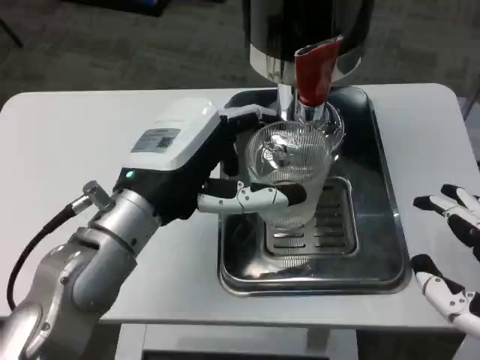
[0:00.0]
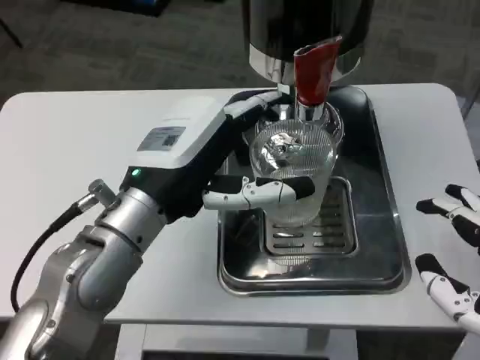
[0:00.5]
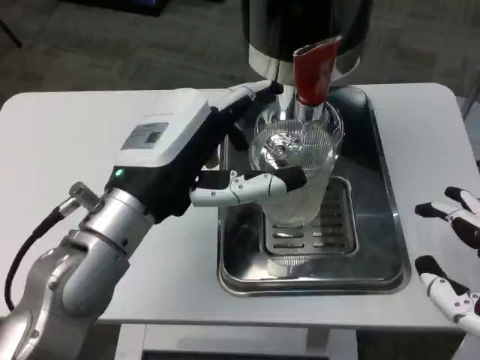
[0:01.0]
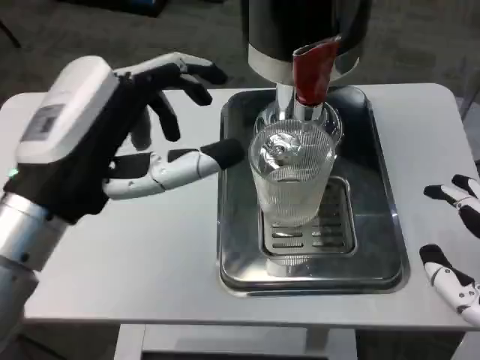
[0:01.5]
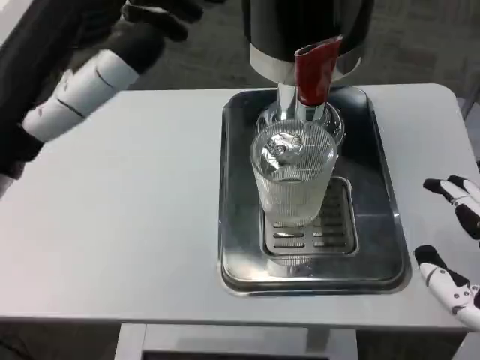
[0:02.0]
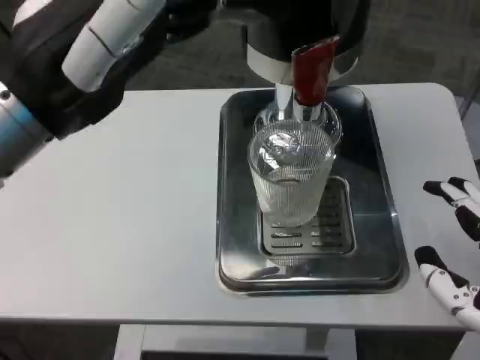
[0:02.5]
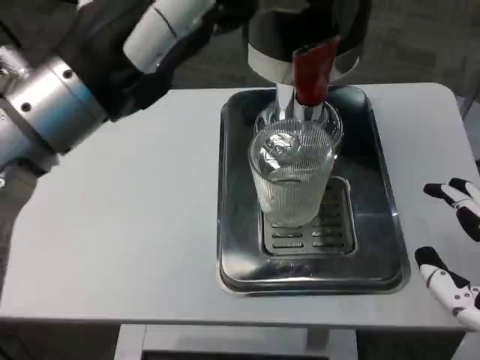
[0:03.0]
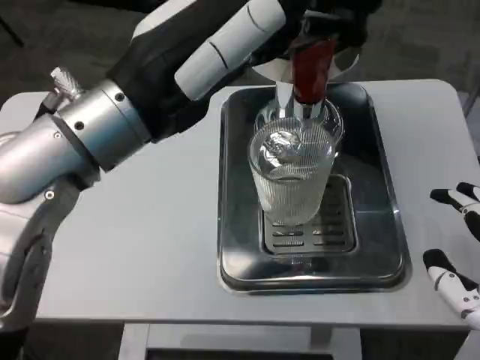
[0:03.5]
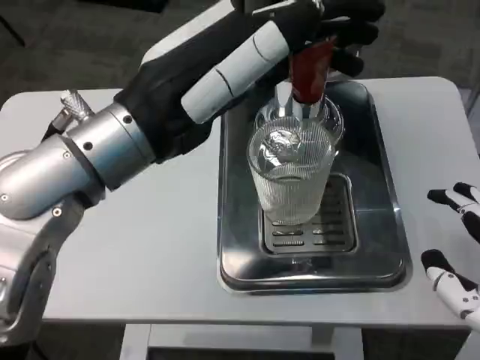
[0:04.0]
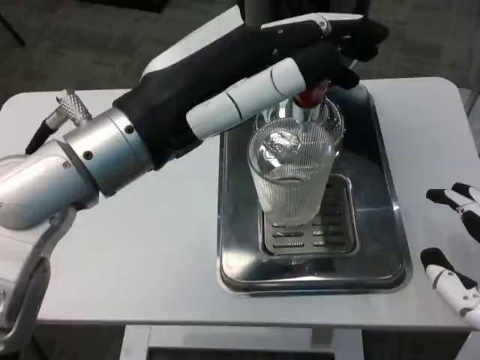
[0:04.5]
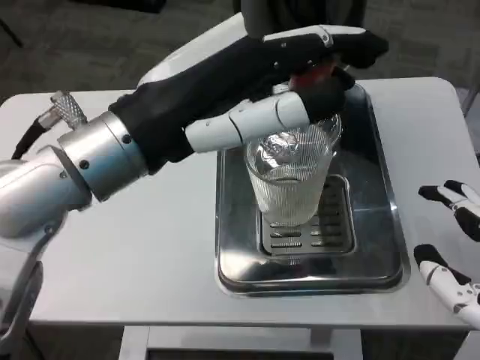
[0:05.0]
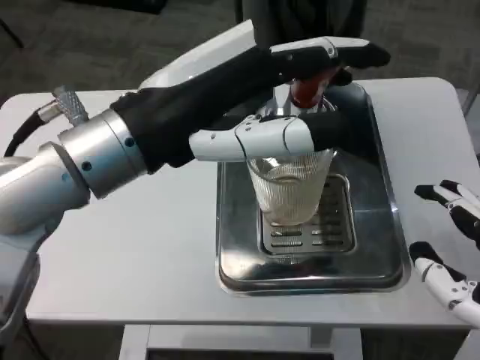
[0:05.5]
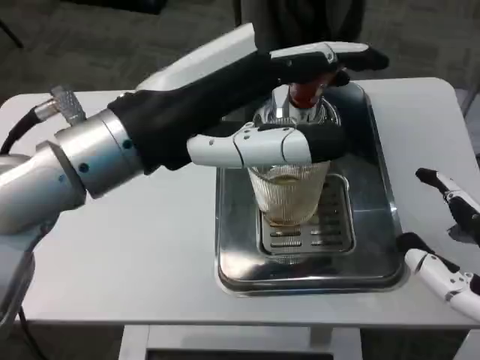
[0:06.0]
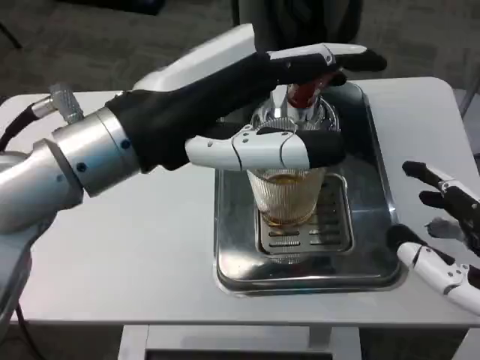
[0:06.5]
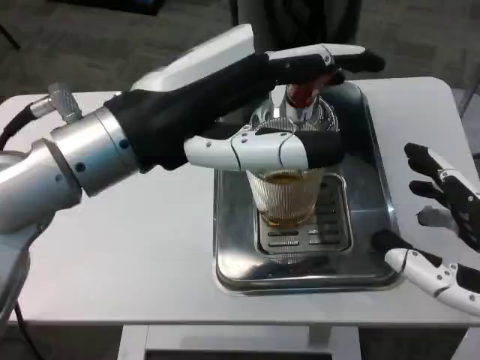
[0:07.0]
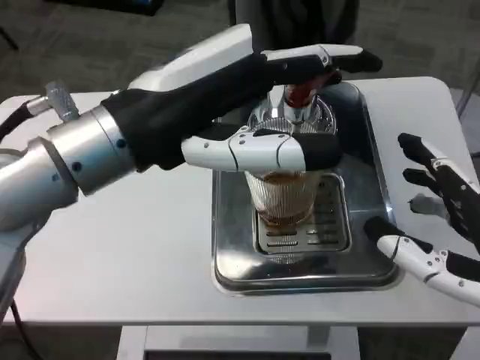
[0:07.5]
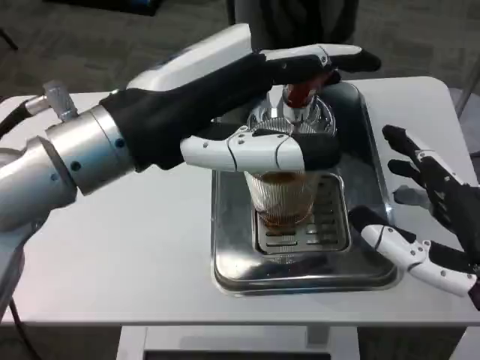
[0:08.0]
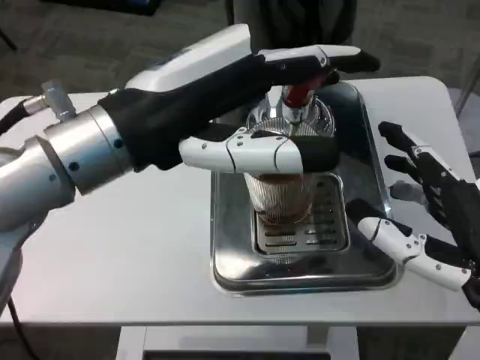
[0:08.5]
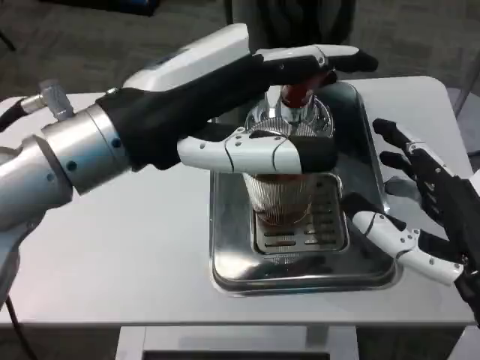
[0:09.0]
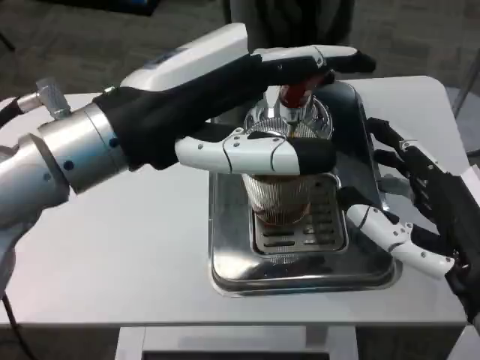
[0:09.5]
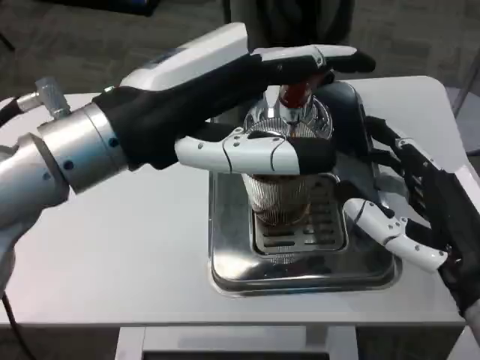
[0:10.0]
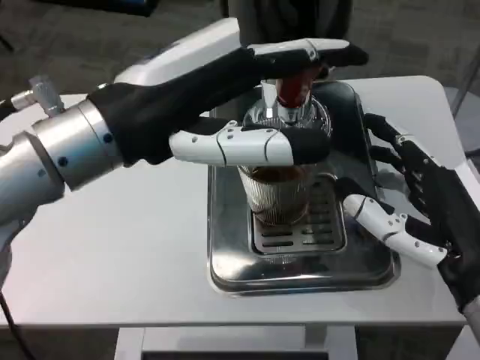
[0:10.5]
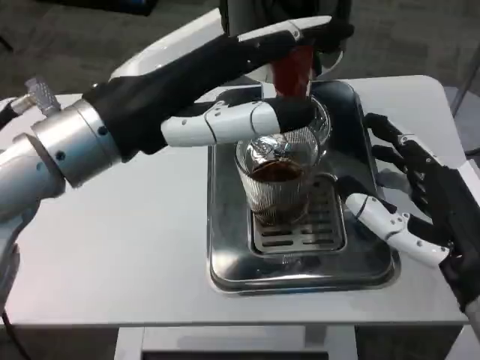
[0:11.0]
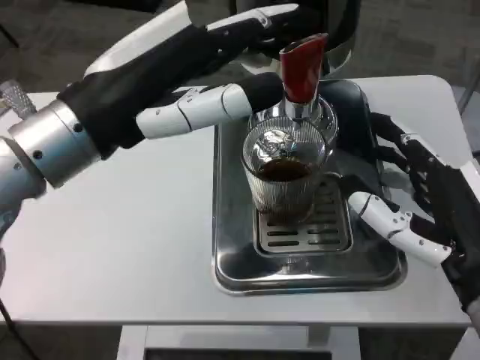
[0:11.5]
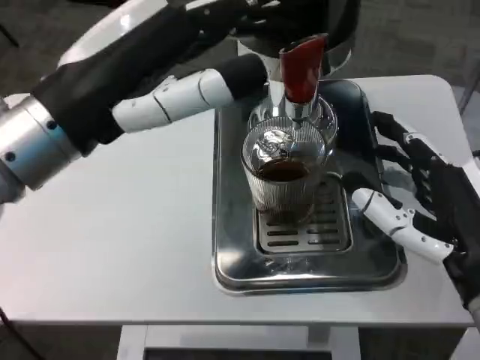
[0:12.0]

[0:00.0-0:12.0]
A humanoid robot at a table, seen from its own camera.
Task of the whole recording: Grasp the cup under the faucet to collect the drink, then remove the cup.
0:00.0 to 0:02.0: The left hand travels upward, to the left and backward by some 15 cm.
0:02.0 to 0:04.0: The left hand travels to the right by some 5 cm.

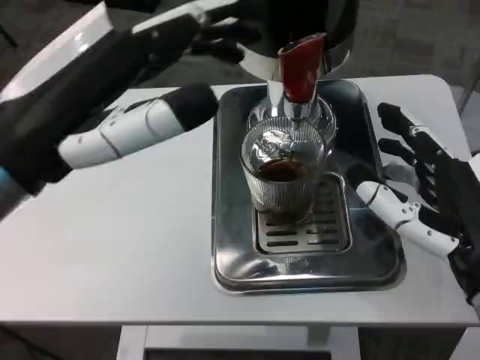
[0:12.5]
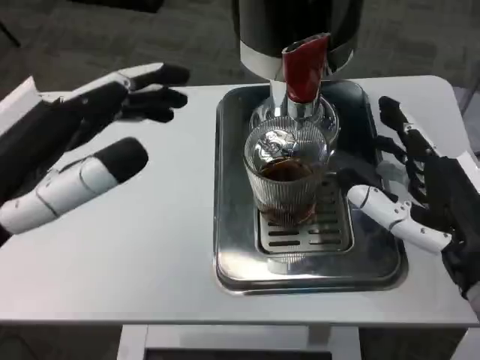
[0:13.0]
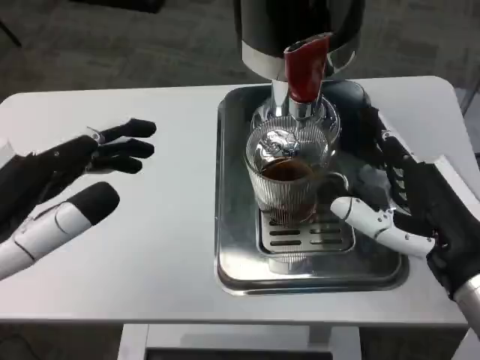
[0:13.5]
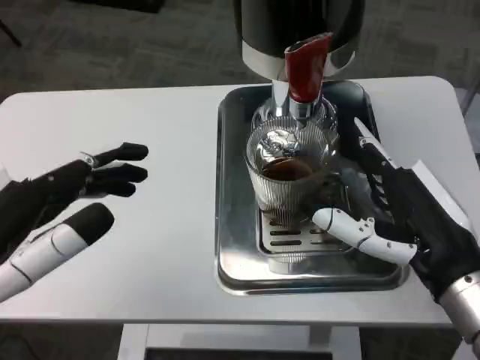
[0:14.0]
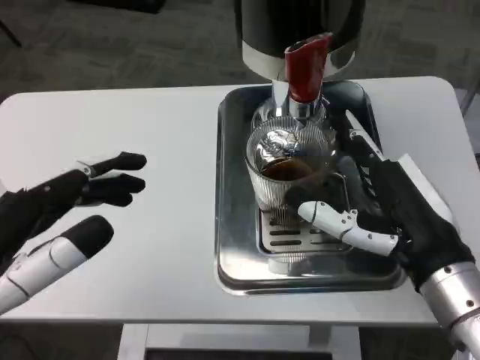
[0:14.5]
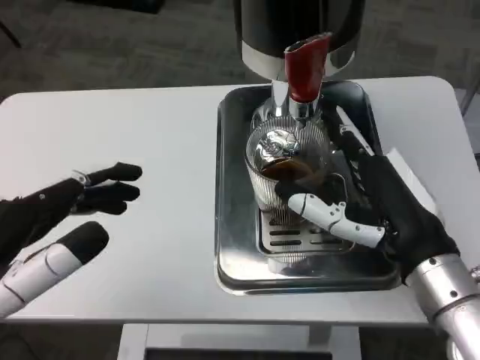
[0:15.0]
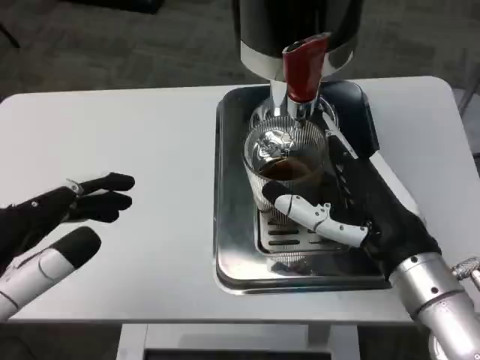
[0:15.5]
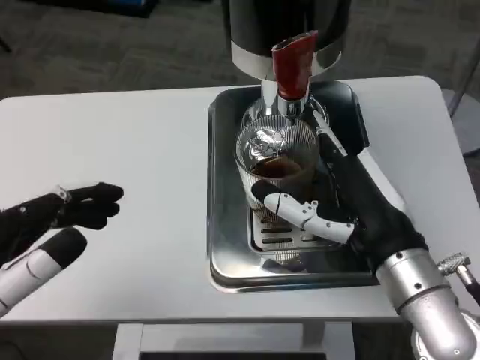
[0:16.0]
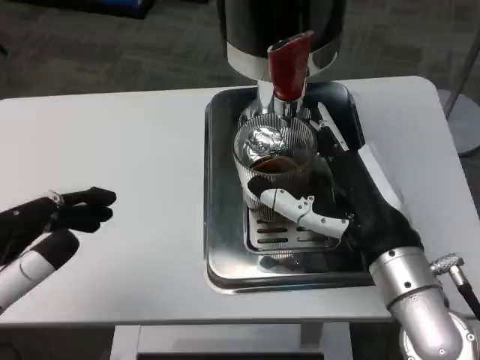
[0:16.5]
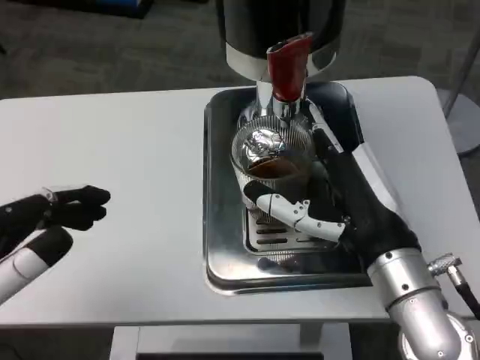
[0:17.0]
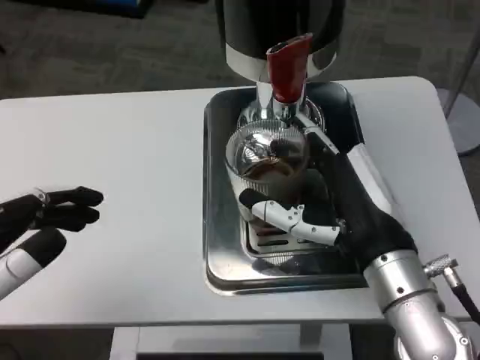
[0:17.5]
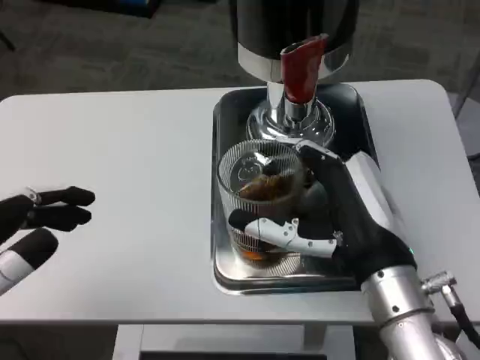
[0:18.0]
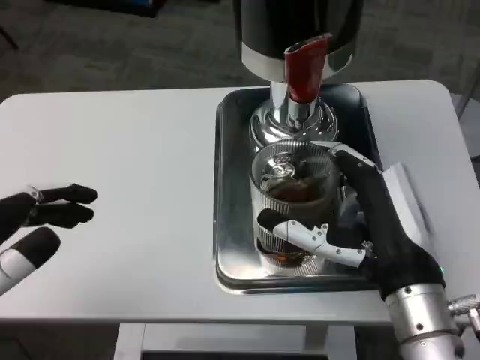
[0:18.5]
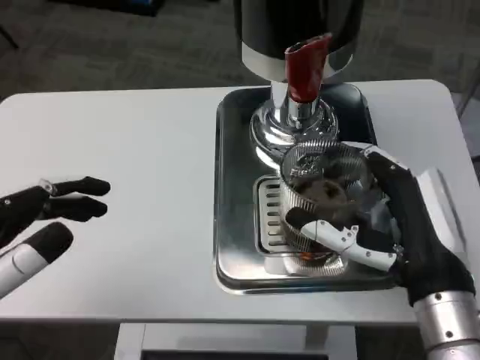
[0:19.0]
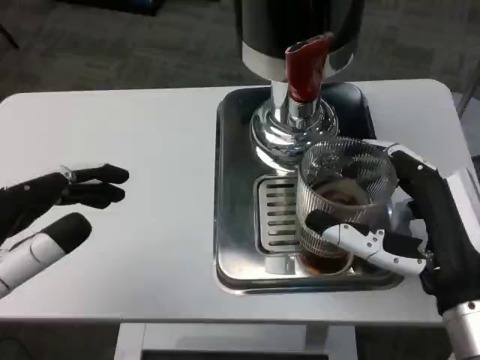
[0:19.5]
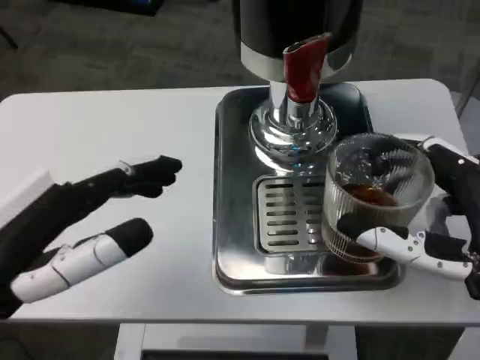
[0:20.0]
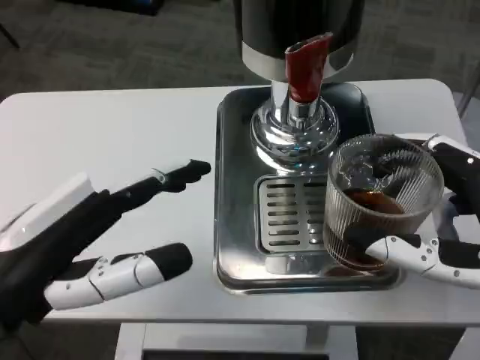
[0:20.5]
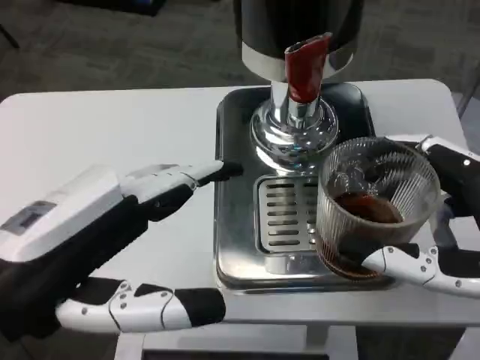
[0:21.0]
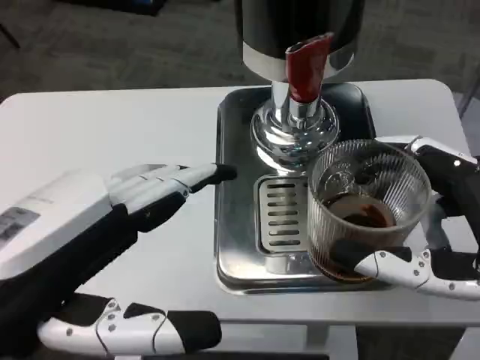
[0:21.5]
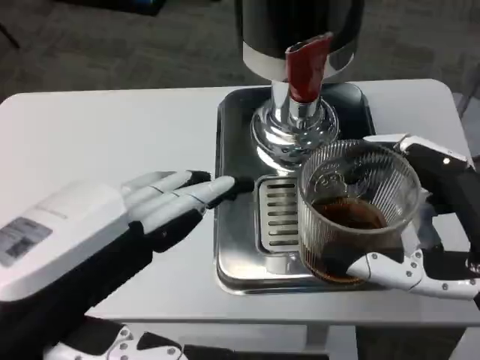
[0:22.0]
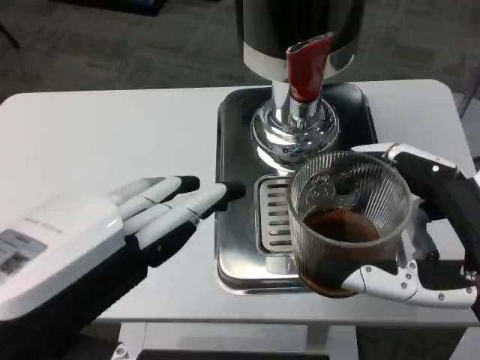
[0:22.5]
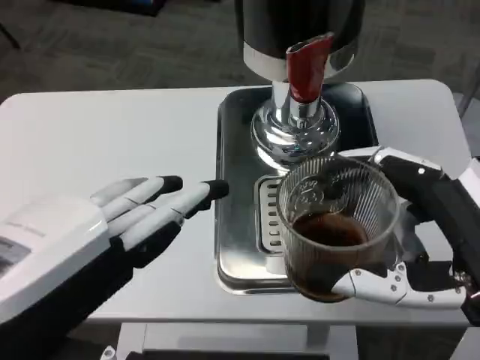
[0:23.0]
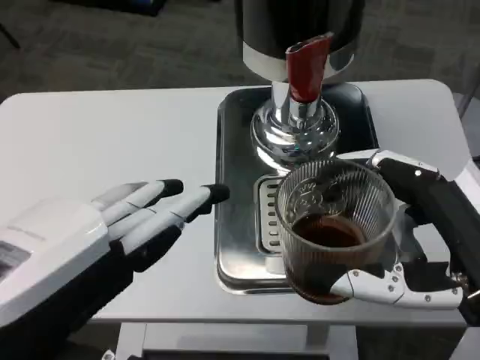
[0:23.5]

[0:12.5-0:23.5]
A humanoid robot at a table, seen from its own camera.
Task of the whole recording: Grasp the cup under the faucet to collect the drink, then remove the cup.
0:12.5 to 0:14.5: The left hand shifts about 10 cm downward and backward.
0:18.0 to 0:20.0: The right hand is displaced to the right and backward by some 10 cm, while the left hand changes place by roughly 5 cm.
0:20.0 to 0:21.5: The left hand shifts by about 5 cm.
